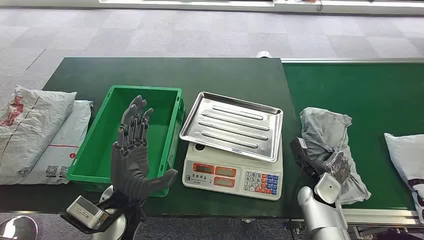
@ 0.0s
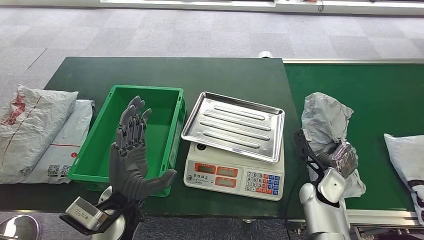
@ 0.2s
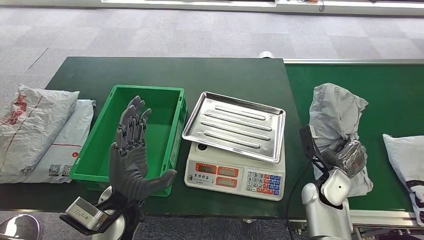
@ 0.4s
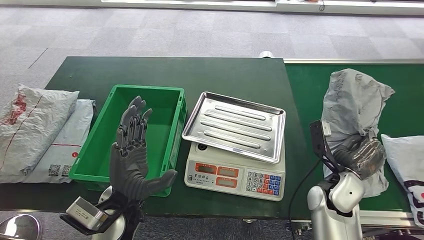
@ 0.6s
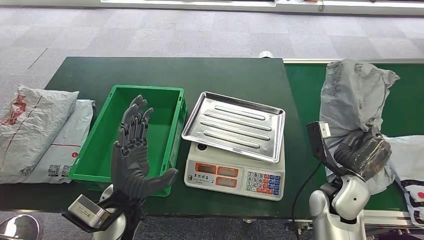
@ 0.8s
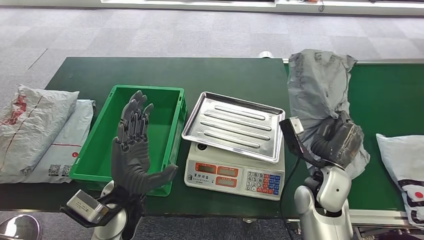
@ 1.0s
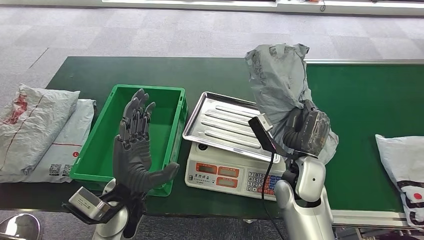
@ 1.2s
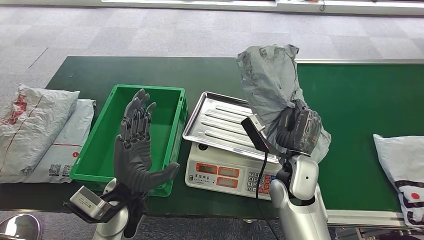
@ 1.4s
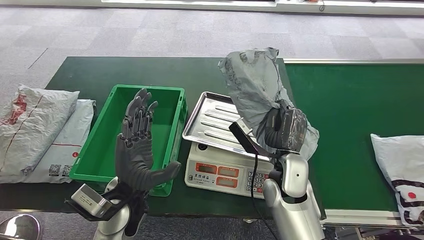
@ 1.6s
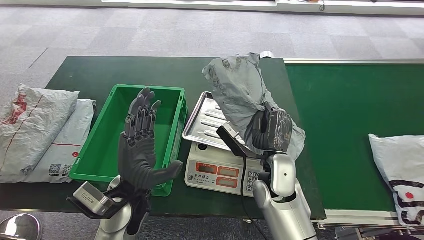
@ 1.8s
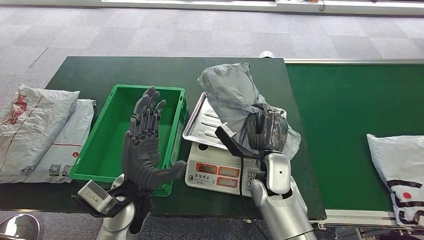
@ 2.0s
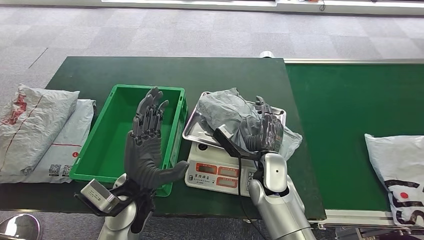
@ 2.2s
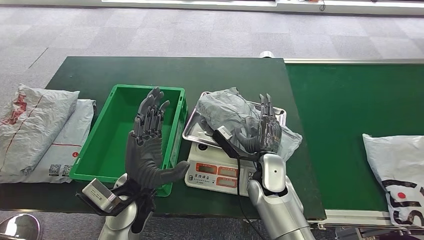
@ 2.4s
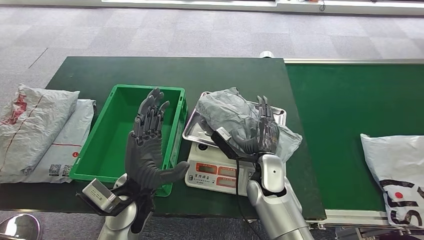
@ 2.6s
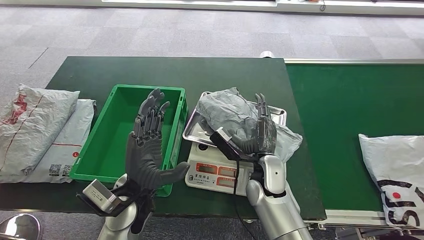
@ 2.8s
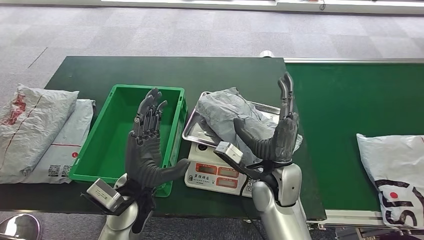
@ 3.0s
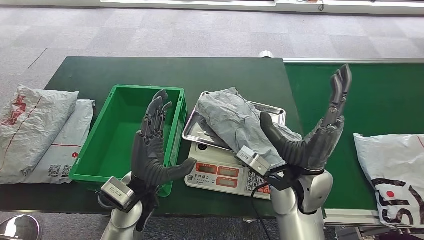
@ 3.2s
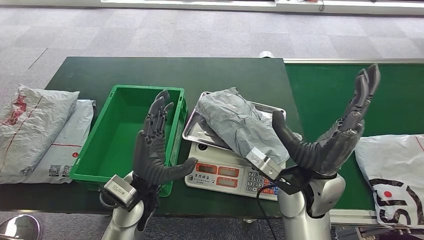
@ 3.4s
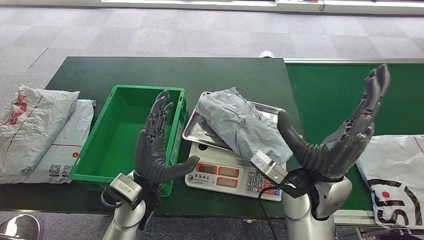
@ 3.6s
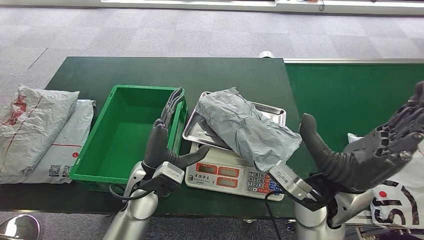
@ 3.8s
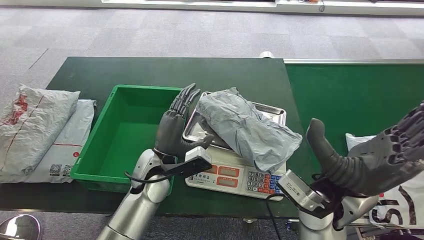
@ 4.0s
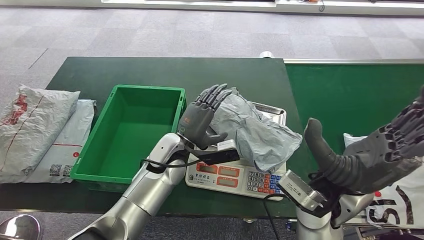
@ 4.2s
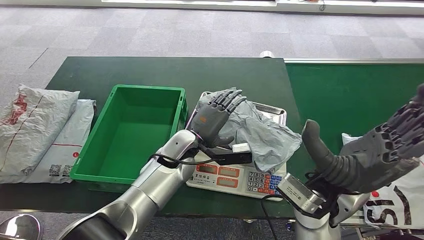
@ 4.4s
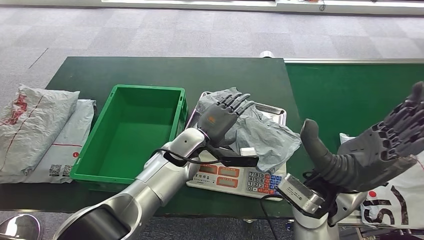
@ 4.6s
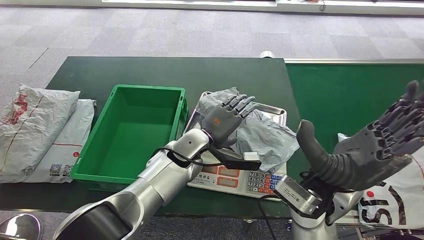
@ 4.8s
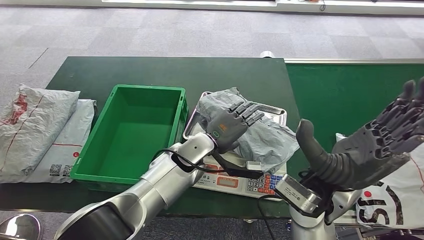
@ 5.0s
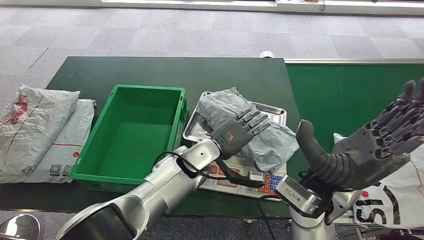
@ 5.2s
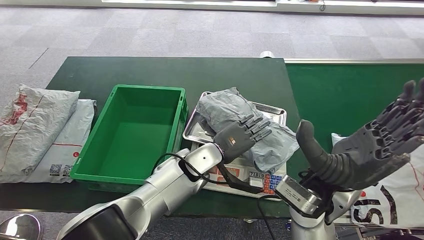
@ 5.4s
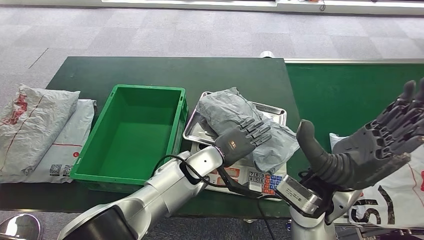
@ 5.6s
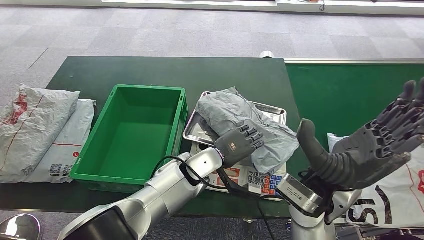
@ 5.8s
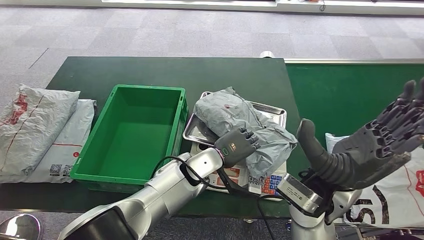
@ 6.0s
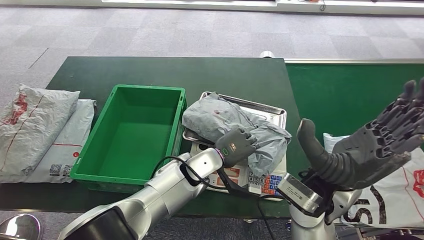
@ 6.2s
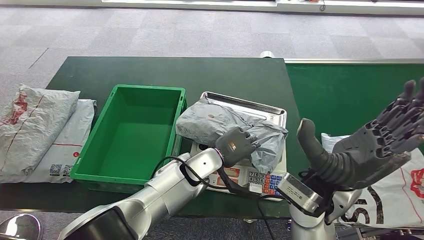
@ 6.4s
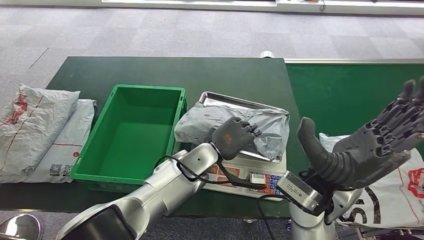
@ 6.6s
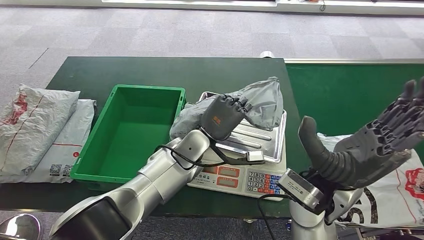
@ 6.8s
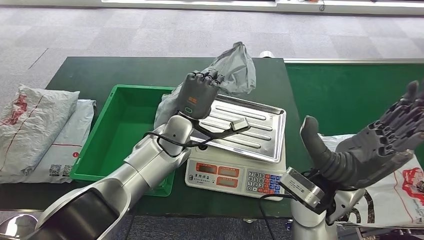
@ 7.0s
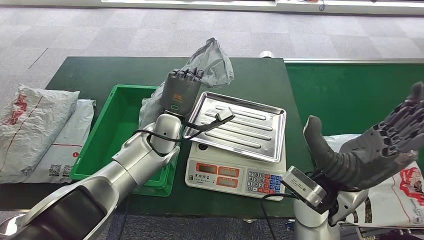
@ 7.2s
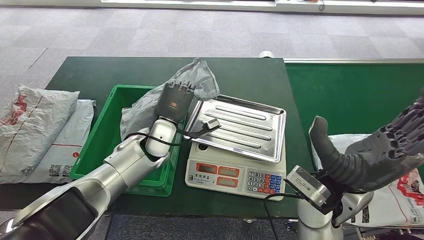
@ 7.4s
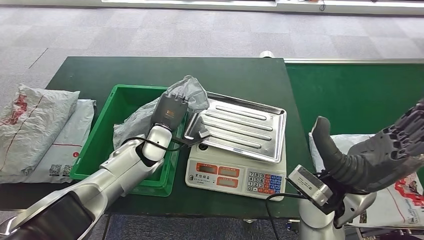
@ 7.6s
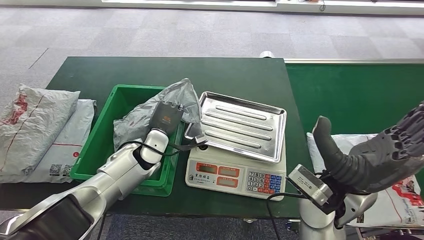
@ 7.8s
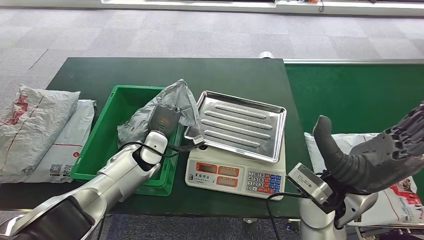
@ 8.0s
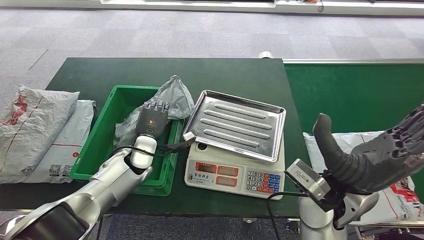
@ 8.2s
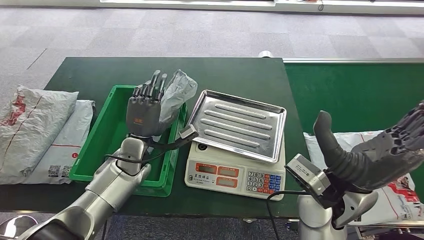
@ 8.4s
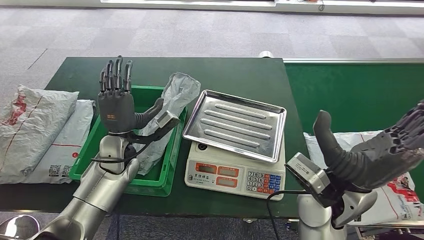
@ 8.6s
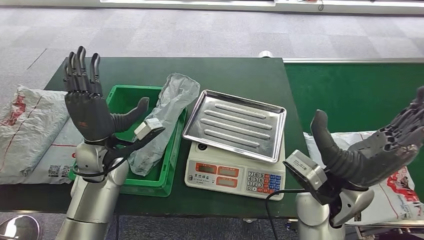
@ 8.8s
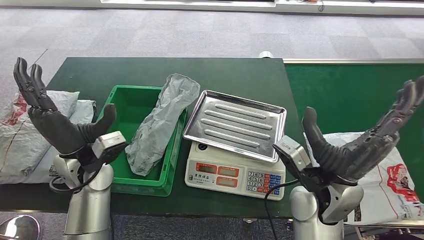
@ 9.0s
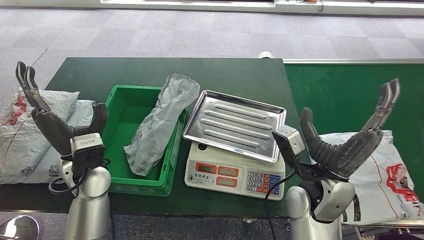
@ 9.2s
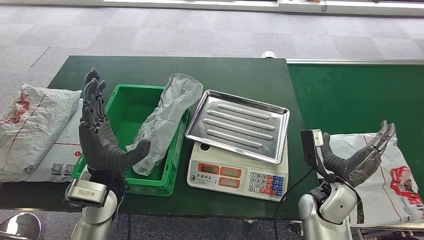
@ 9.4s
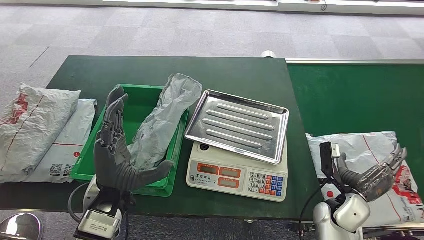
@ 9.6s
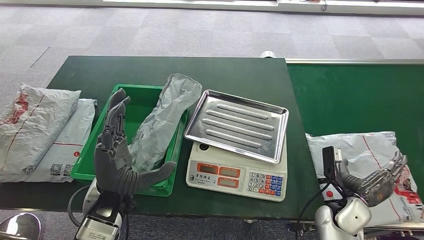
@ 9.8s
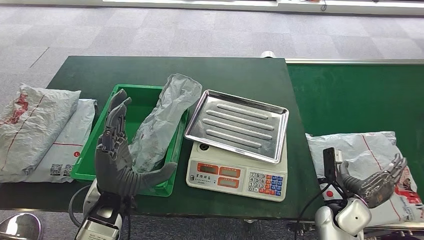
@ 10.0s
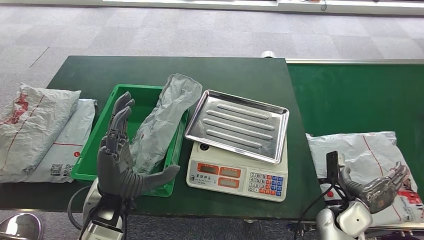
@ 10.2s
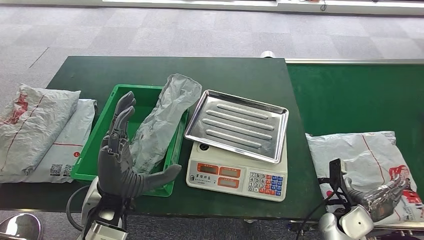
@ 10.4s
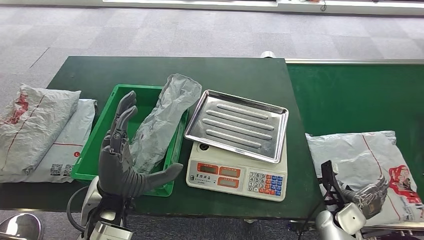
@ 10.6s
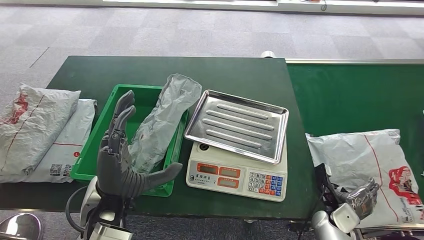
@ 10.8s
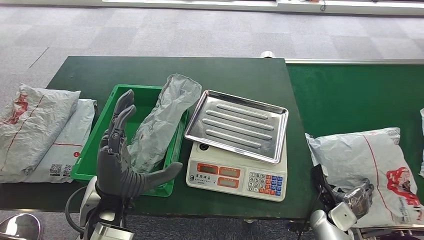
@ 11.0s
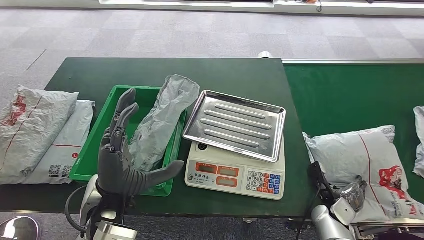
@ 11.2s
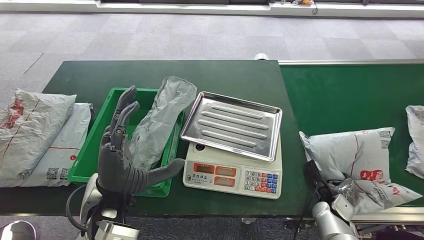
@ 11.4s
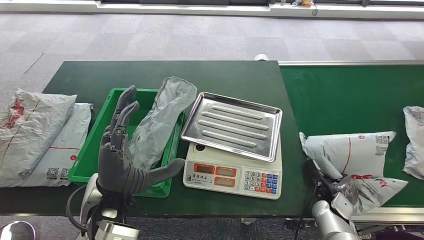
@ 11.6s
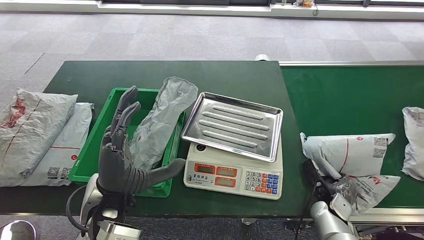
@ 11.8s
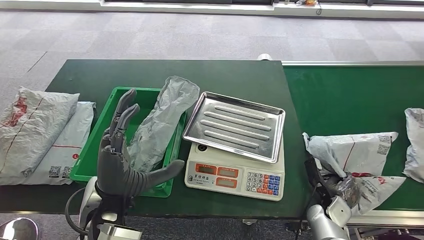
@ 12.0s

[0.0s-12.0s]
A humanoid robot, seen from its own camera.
Step, 0.0s to 0.8s: Take the parcel off the conveyor belt.
Step, 1.0s to 3.0s: Place the parcel onto the inbound machine.
Step, 3.4s to 6.8s: Pick up the parcel from the inbound machine.
Step, 7.0s to 9.8s: Put the parcel inside the courier box.

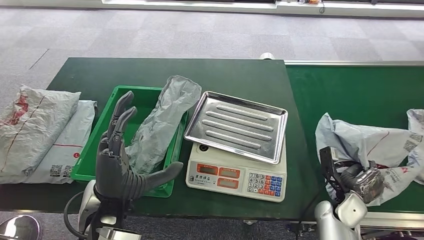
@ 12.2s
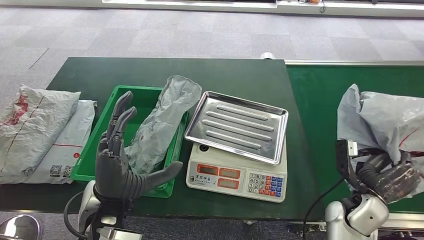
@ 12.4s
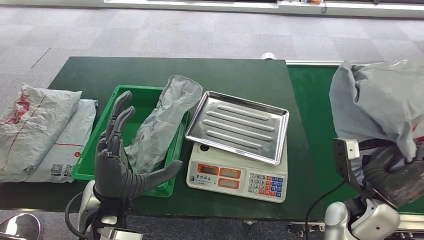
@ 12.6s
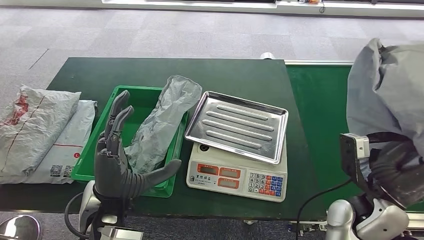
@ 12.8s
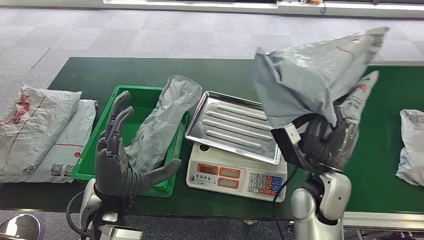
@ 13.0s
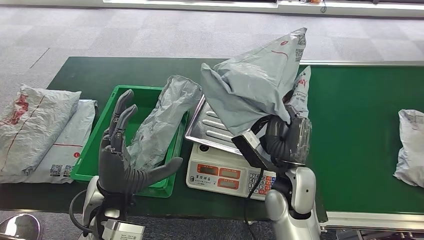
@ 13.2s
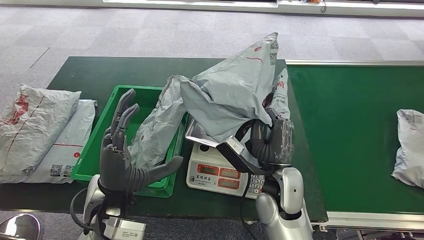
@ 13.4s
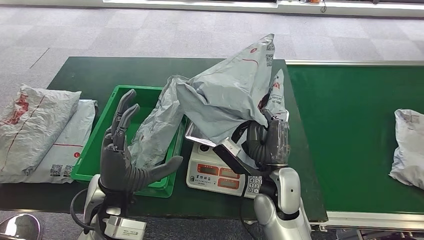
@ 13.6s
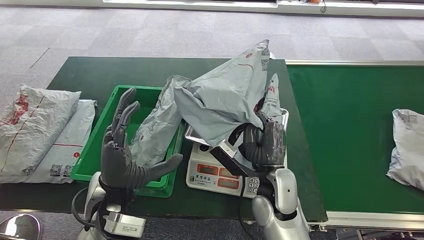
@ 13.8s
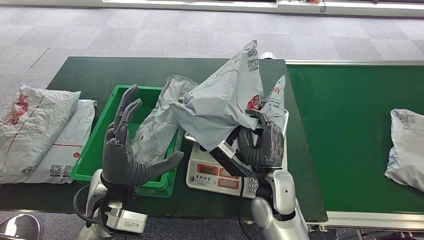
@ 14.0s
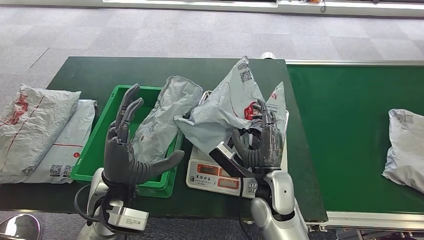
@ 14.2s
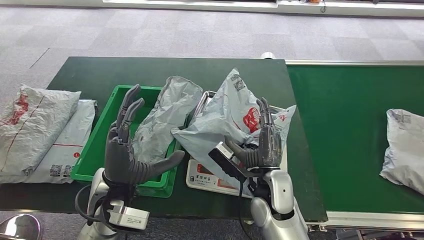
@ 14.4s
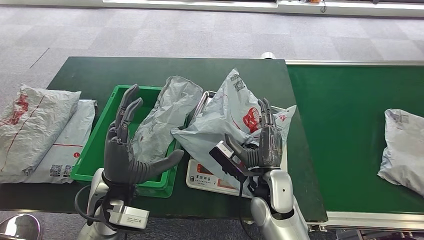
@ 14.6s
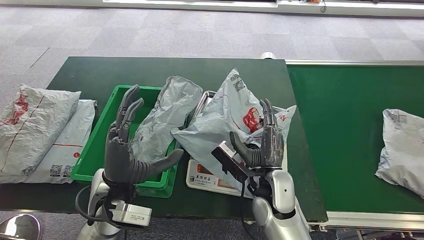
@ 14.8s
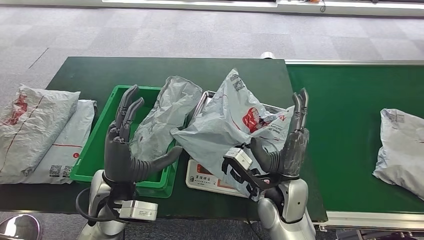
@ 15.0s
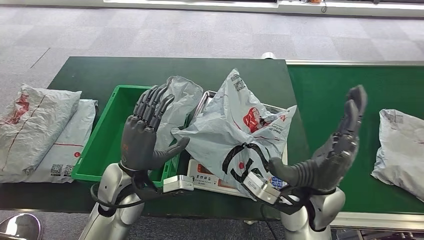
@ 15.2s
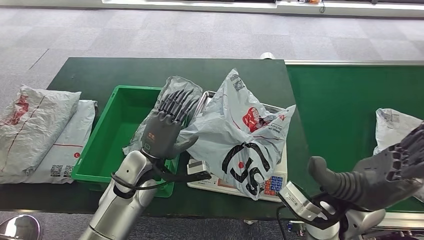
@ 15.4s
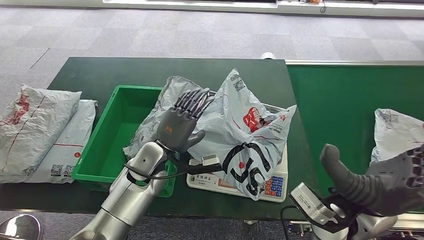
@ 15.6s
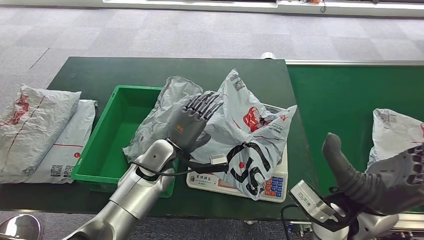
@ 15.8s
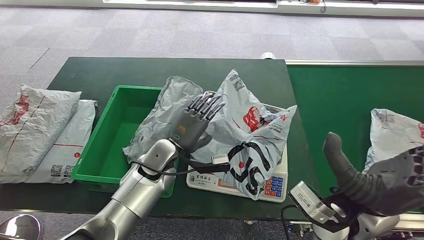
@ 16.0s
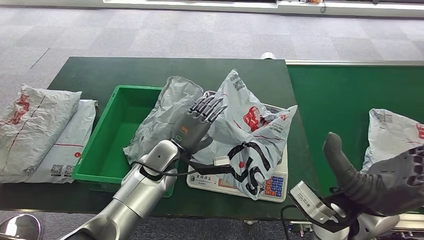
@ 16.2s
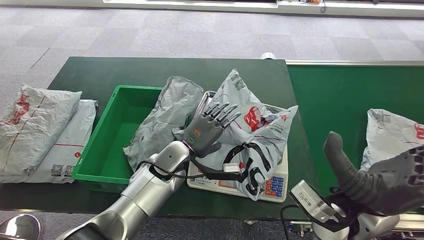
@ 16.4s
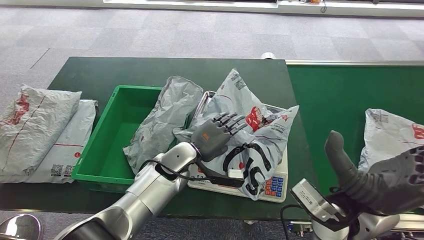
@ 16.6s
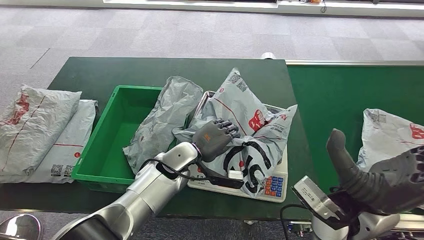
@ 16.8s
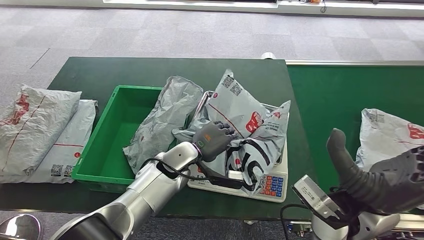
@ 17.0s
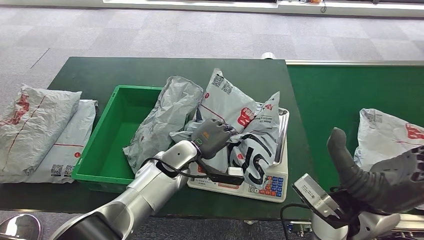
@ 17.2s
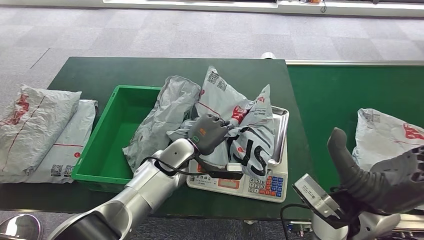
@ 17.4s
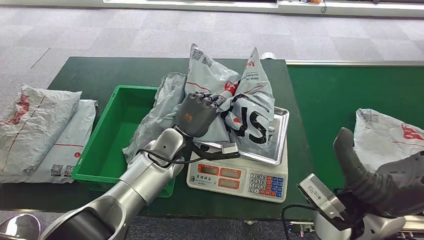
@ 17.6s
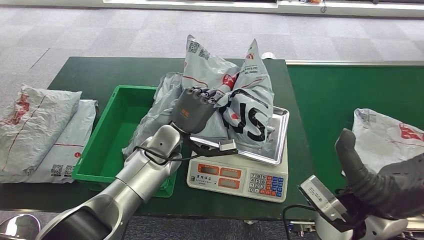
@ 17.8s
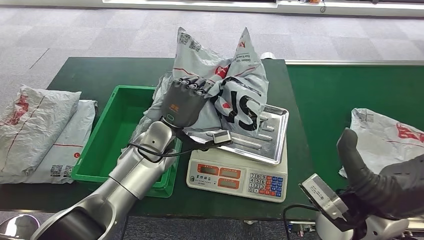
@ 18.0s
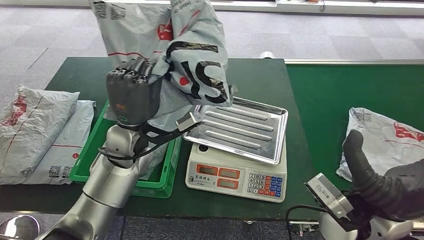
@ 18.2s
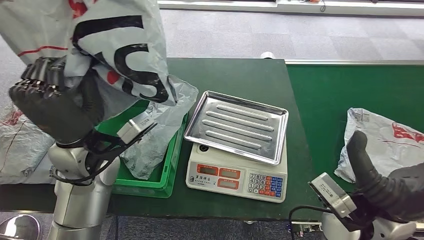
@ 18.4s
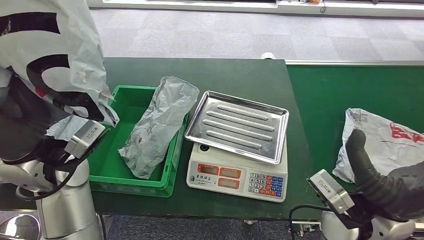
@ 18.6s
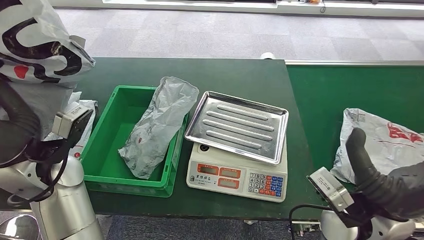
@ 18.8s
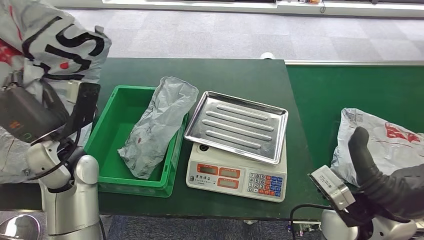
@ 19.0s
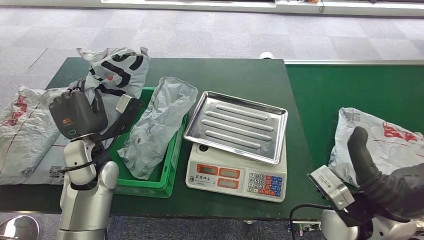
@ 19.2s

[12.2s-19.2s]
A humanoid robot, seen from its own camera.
Step, 12.2s to 13.0s: Pick up the parcel from the conveyor belt.
Step, 13.2s to 15.8s: Place the parcel onto the inbound machine.
Step, 16.0s to 18.6s: Pick up the parcel from the inbound machine.
